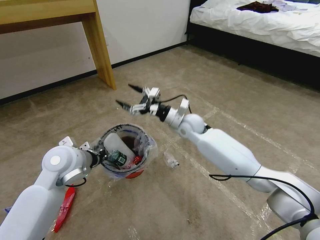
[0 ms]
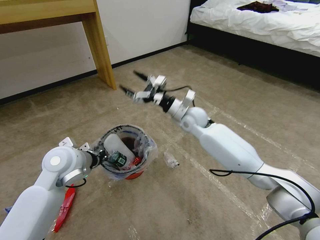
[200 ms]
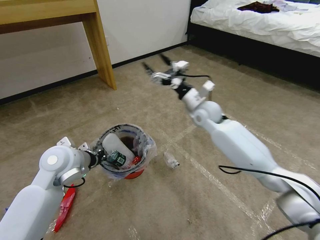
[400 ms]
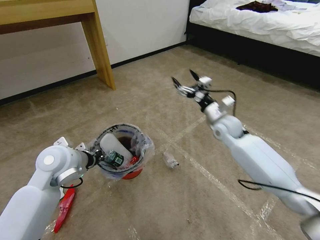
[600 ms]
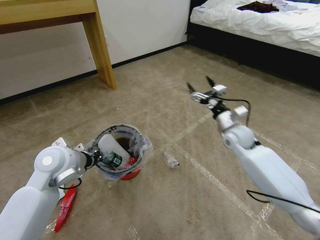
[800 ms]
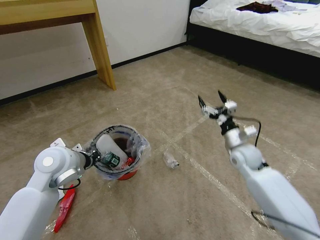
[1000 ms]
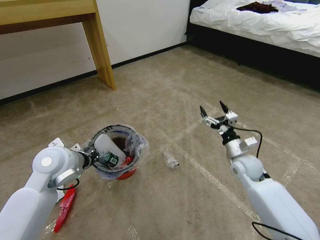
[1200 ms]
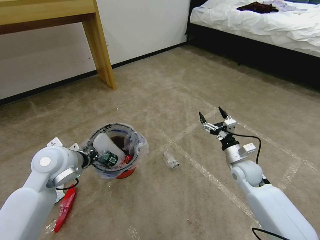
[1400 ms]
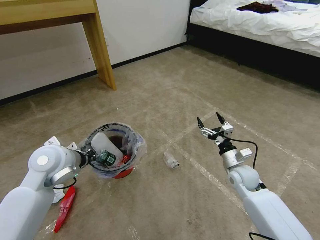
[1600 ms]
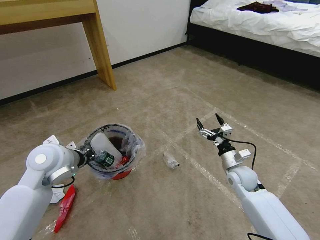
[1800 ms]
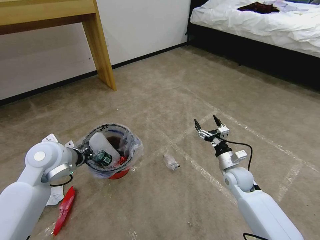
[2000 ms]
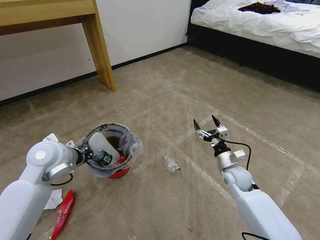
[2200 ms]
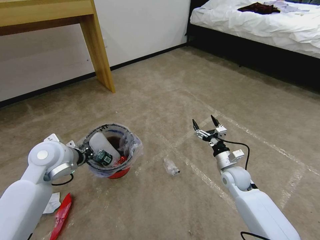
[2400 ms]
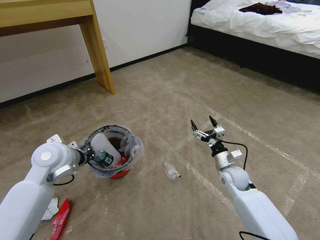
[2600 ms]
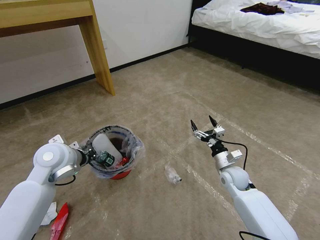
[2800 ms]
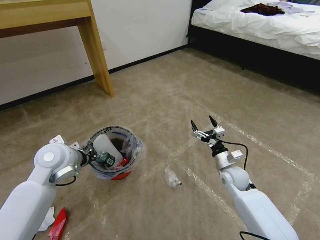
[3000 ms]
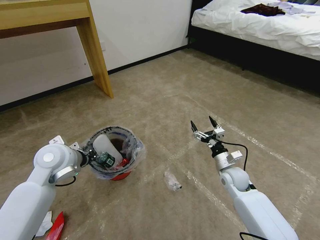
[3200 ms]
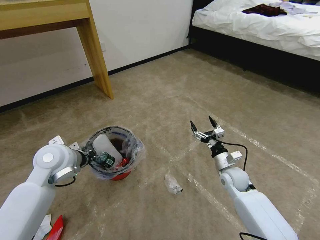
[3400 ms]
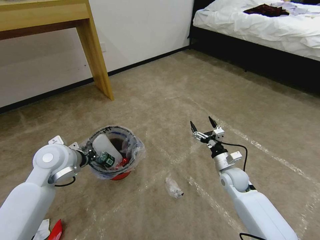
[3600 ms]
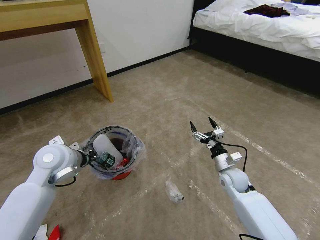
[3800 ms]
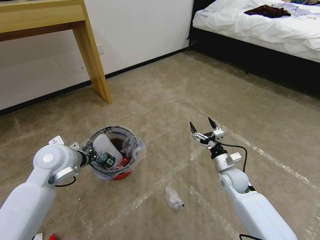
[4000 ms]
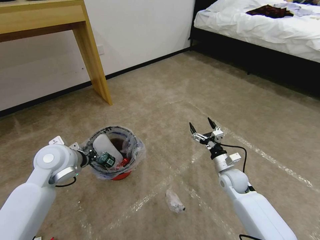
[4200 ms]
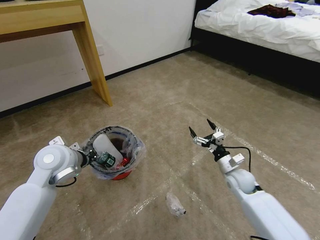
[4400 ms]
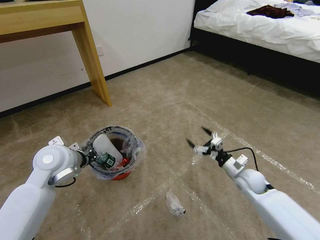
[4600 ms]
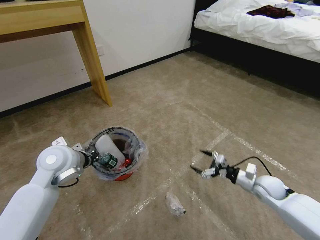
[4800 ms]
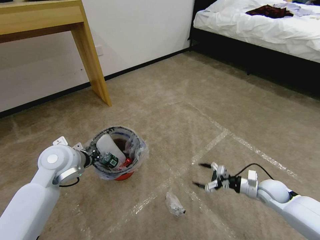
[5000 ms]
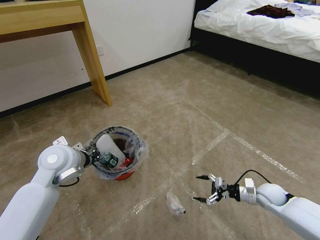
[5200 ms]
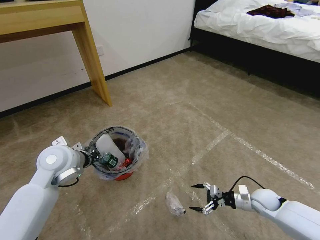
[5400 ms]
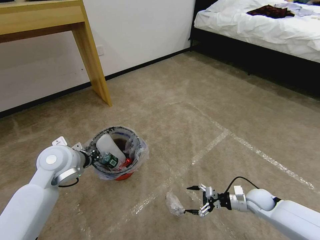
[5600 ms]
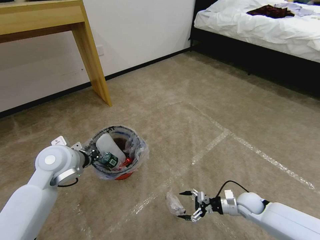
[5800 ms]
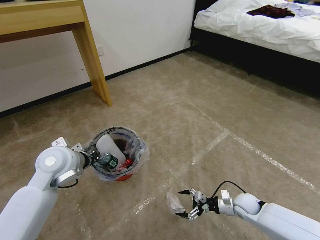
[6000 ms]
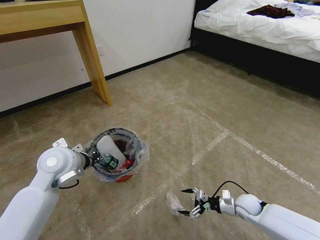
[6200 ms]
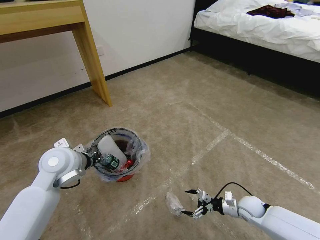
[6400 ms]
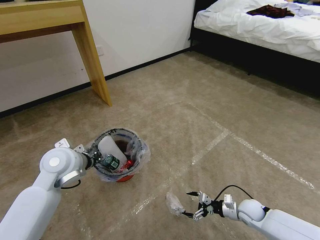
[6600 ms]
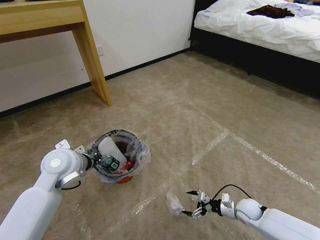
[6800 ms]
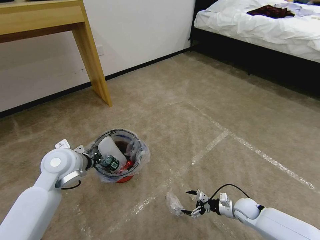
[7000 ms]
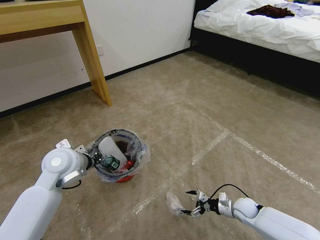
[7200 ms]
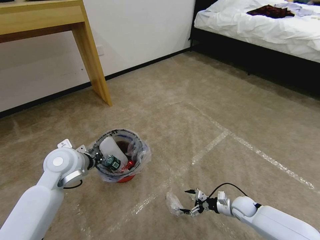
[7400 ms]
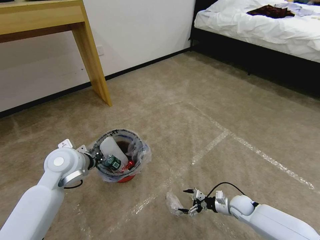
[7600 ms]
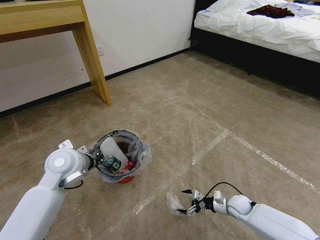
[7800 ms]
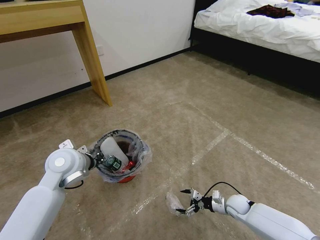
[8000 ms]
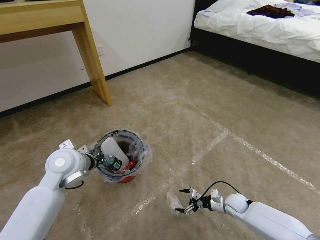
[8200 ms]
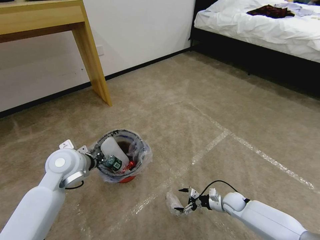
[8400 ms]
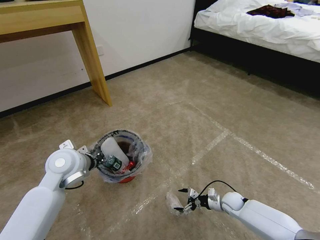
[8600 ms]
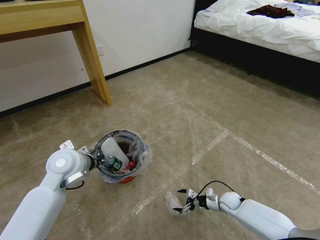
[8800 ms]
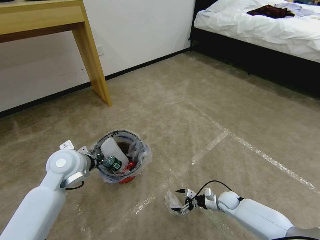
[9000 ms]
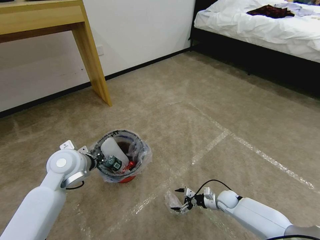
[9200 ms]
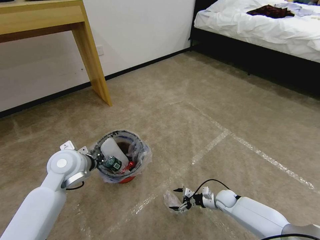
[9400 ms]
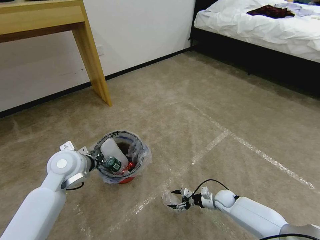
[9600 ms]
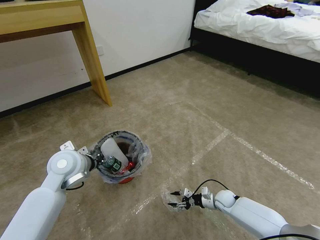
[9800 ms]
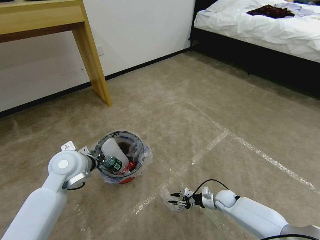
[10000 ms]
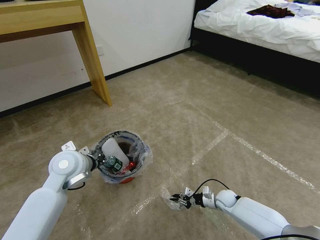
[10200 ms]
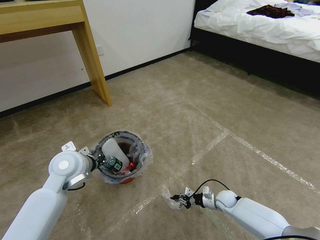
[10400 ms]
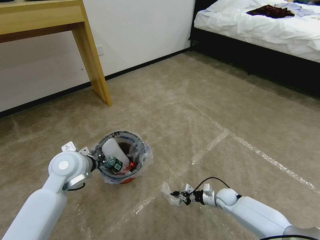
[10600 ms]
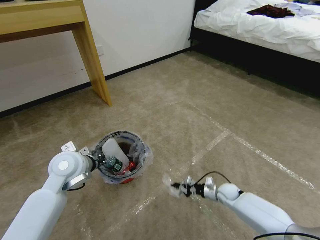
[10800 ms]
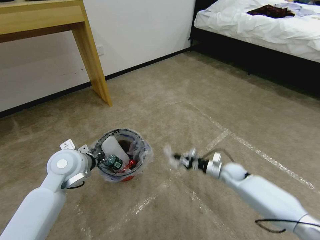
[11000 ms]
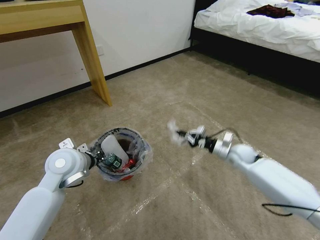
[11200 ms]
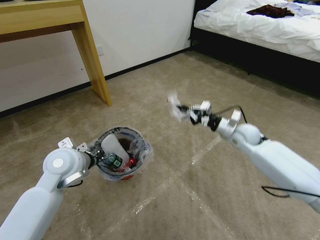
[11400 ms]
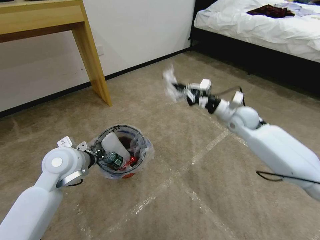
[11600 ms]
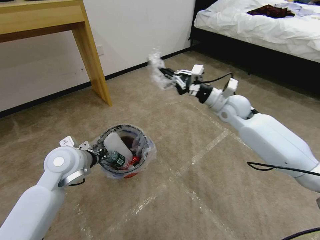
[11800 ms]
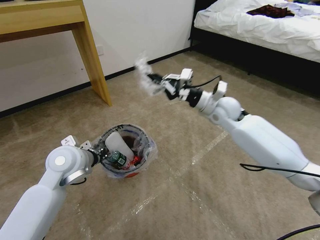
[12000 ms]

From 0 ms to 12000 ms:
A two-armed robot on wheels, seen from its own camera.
Task of the whole recording: Pick up the trash bin and place the garbage on the floor into it.
From 0 ms to 1600 ms: The right gripper shifts some 25 cm to the right, backward and downward.
From 1600 ms to 4400 ms: The grippers make only small movements.
From 4400 ms to 6000 ms: The right gripper moves downward and backward, about 10 cm, and goes to the right and returns, approximately 10 cm each way.
From 6000 ms to 7600 ms: The grippers move only a little.
From 7600 ms to 9000 ms: The right gripper moves some 5 cm.
From 9000 ms to 10400 ms: The right gripper closes its fingers.
From 10400 ms to 12000 ms: The right gripper heads upward, covering approximately 40 cm.

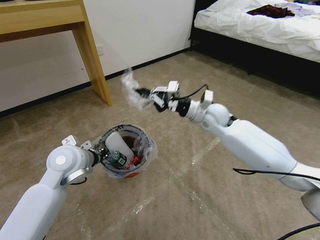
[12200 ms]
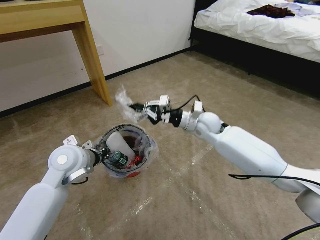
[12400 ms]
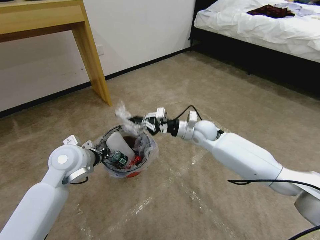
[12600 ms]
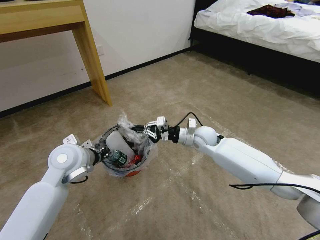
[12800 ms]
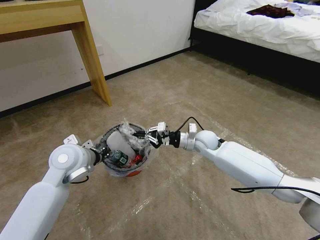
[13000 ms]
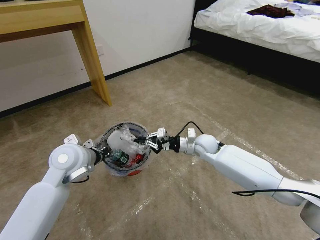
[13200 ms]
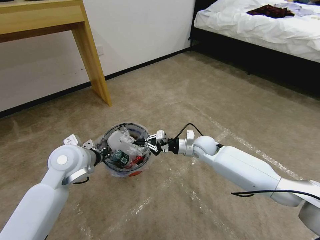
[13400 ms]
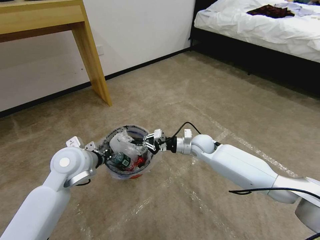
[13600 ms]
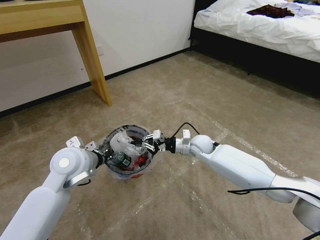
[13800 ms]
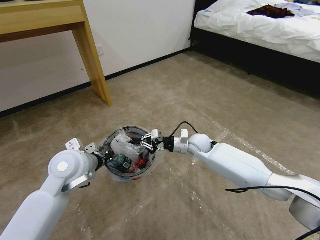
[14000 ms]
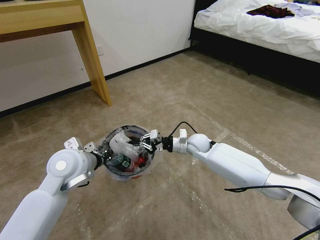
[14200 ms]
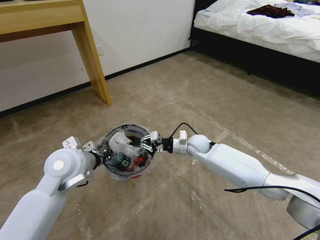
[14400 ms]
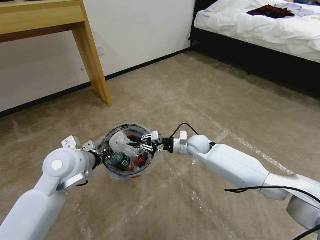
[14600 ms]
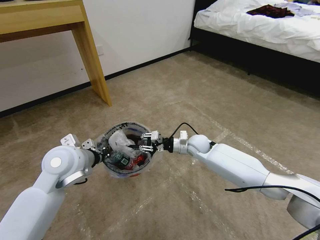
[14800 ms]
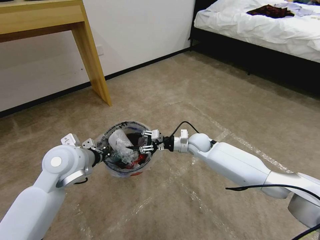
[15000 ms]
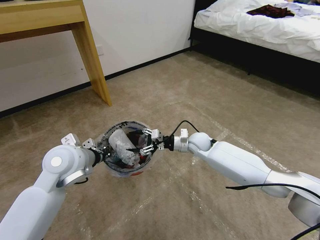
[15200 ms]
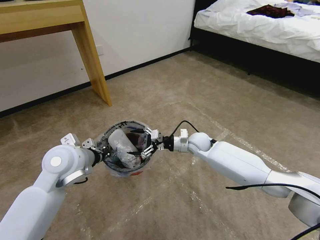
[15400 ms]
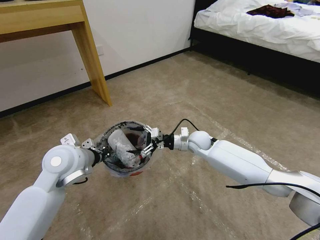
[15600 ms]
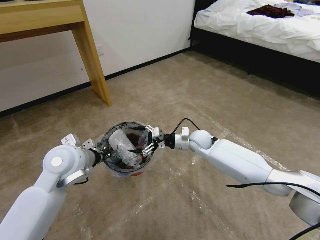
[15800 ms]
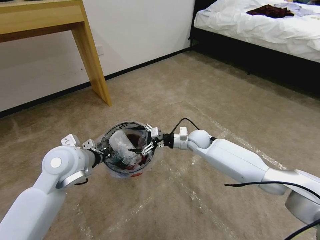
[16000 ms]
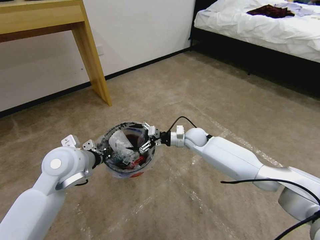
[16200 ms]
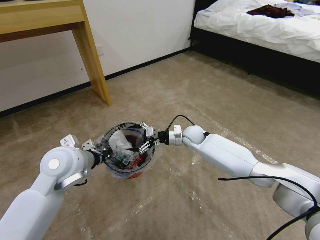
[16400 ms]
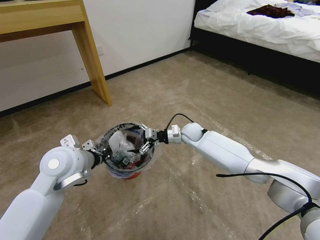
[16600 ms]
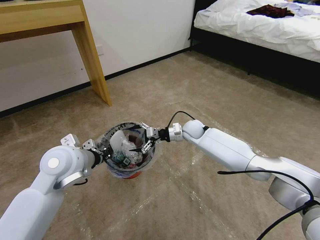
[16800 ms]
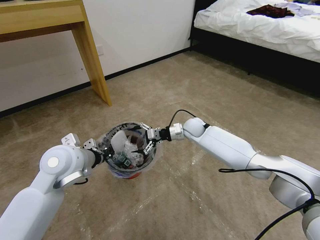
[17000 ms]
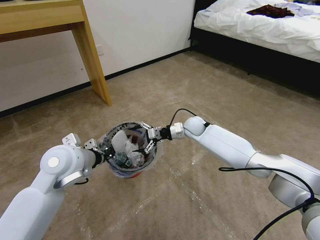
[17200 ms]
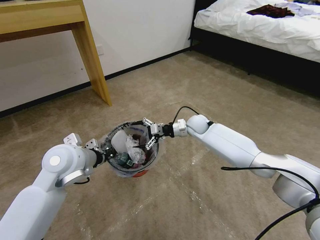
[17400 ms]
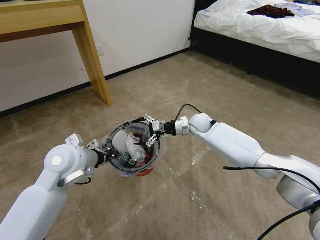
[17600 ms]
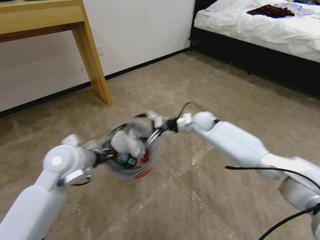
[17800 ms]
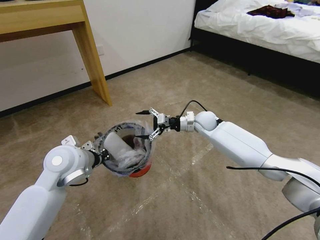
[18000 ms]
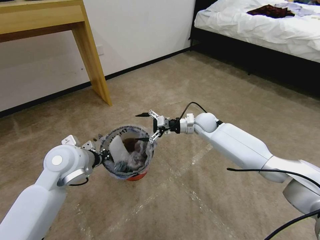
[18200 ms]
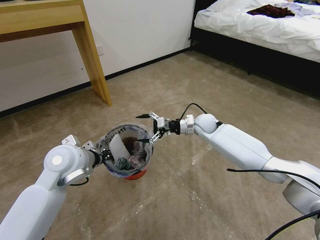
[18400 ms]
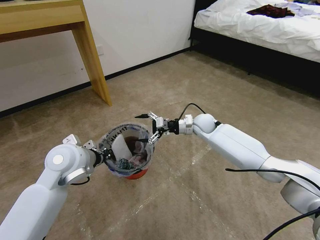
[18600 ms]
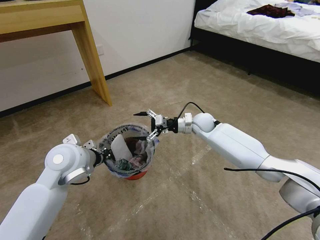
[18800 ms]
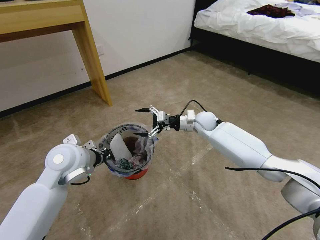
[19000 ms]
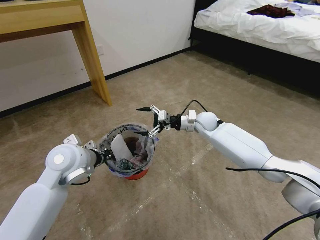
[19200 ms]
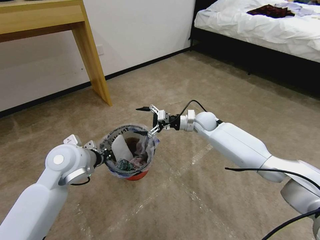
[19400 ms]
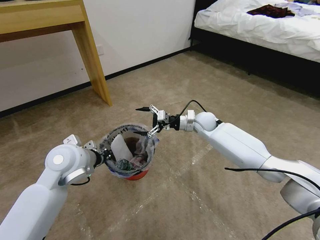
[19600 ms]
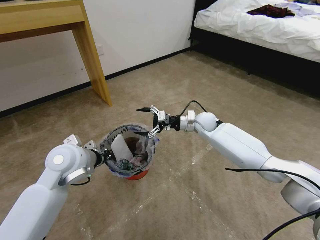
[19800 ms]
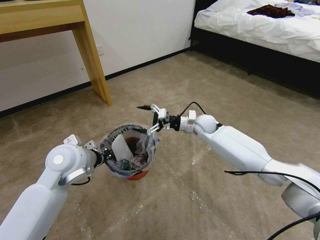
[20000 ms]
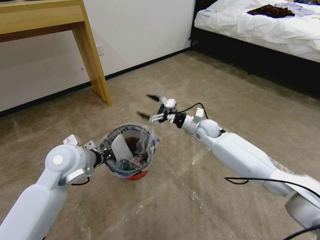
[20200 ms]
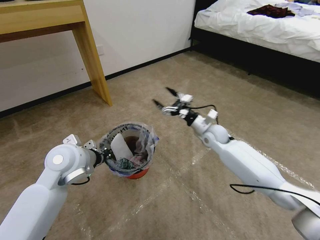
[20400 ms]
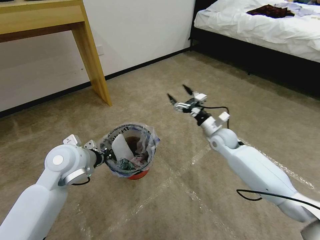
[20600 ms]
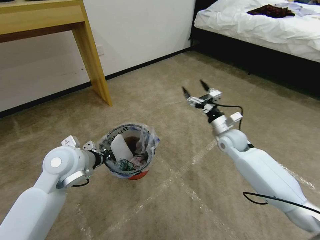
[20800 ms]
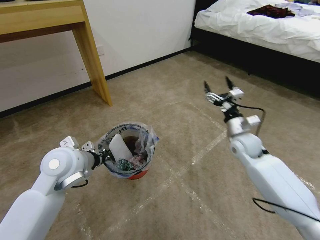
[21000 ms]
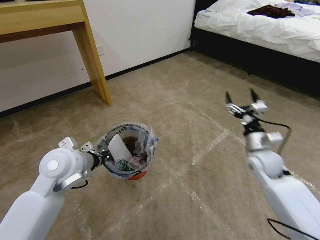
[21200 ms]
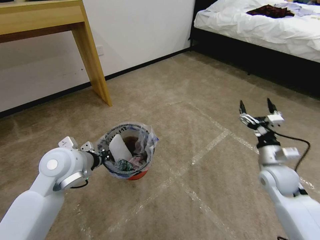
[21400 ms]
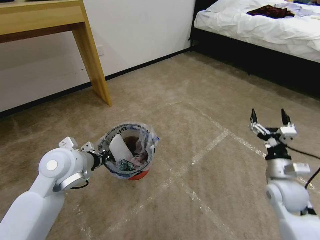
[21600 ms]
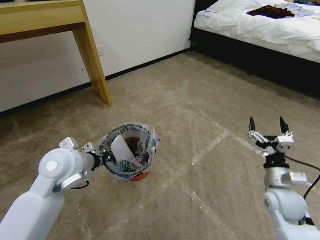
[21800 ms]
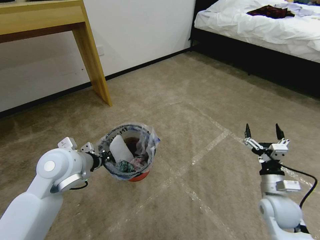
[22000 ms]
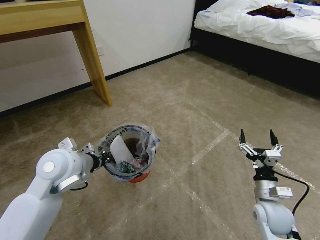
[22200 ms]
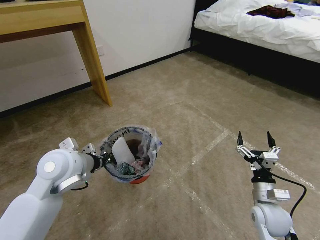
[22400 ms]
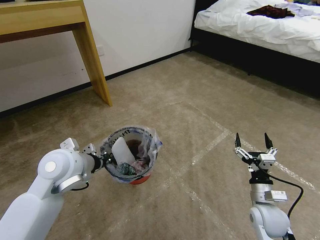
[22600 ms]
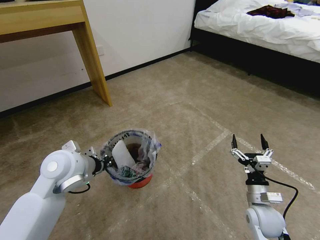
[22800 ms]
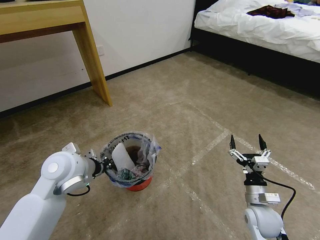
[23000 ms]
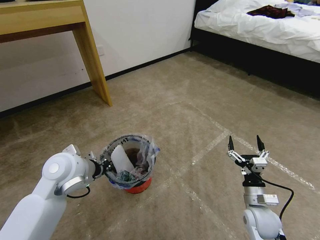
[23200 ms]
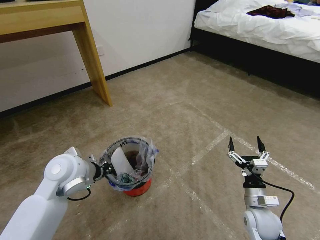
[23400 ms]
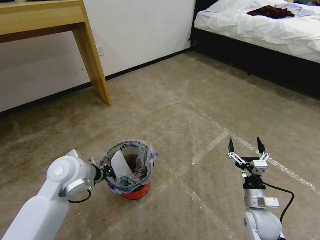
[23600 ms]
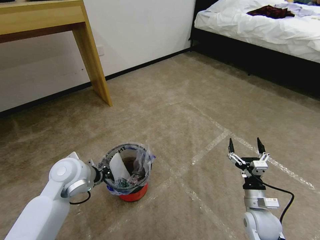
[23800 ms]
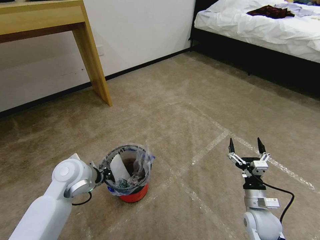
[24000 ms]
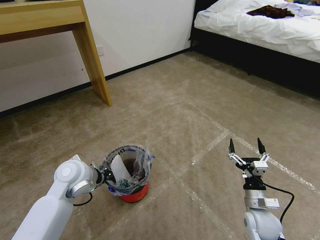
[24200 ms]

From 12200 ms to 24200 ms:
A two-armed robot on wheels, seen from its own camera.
Task of the whole recording: Pick up the trash bin and place the garbage on the floor into it.
From 12200 ms to 13800 ms: The right gripper is displaced downward by about 15 cm.
From 13800 ms to 15200 ms: The right gripper opens.
From 15200 ms to 16600 ms: The right gripper moves forward, some 5 cm.
From 16600 ms to 18200 ms: The right gripper travels upward by about 5 cm.
From 18200 ms to 19800 ms: The grippers stay close to where they were, moving slightly.
From 19800 ms to 21200 ms: The right gripper heads backward and to the right, covering some 25 cm.
From 21200 ms to 22600 ms: The right gripper heads backward and downward, covering approximately 15 cm.
From 22600 ms to 24200 ms: The left gripper moves downward, some 10 cm.
